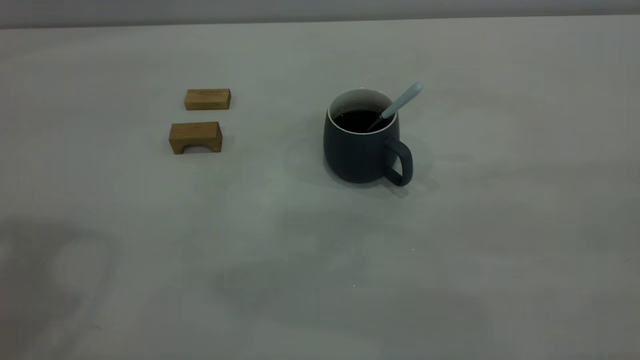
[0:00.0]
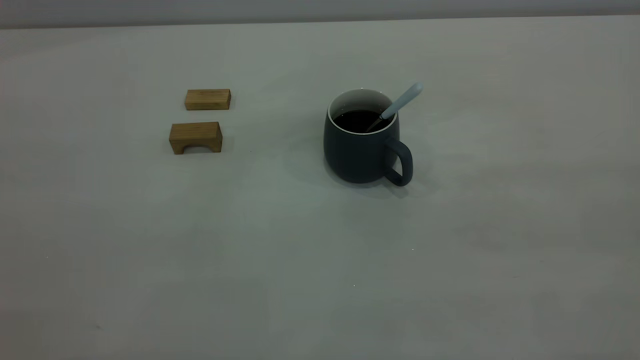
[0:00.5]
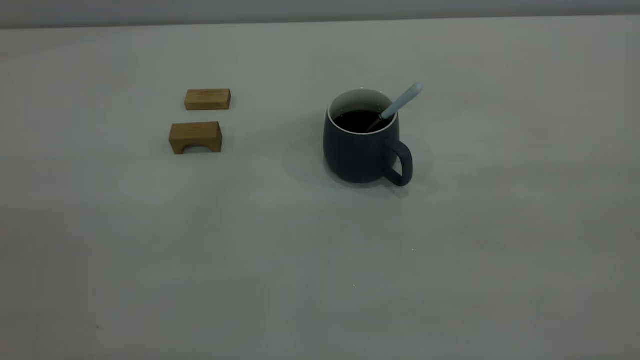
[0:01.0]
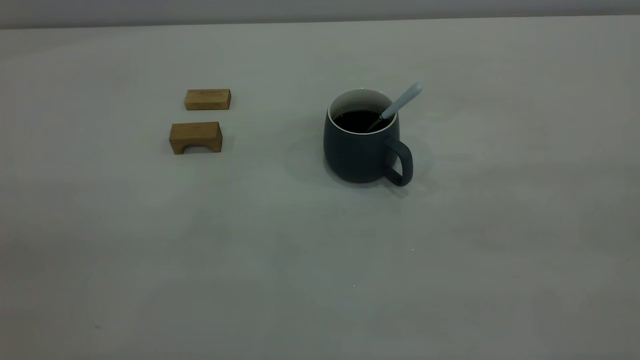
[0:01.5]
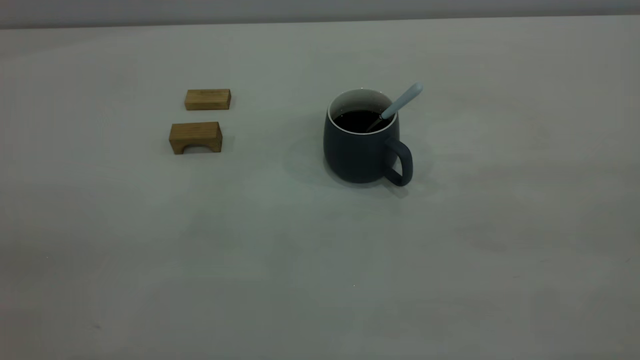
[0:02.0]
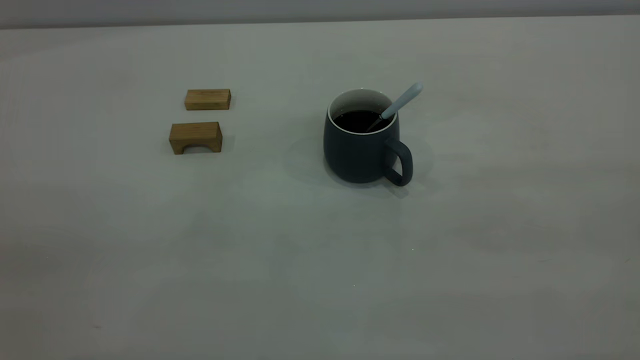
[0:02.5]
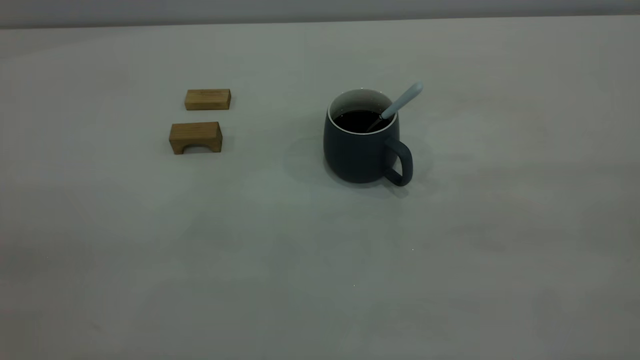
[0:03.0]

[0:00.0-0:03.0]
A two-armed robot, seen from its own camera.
0:01.5 to 0:03.0: Both grippers stay about where they are.

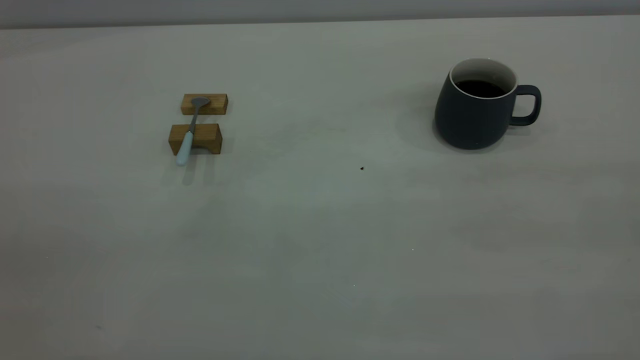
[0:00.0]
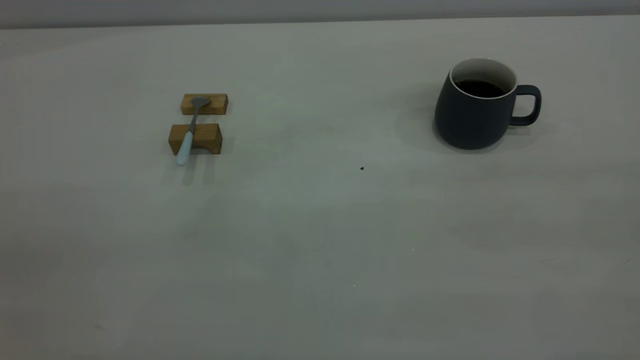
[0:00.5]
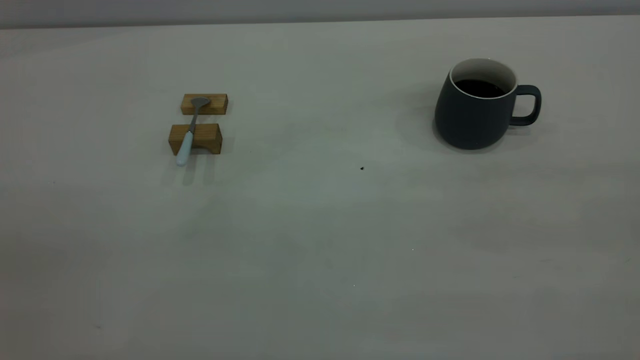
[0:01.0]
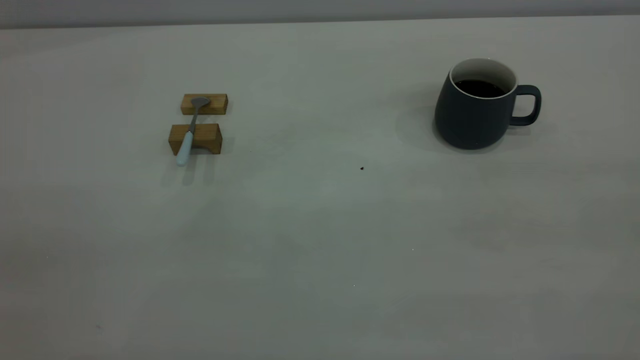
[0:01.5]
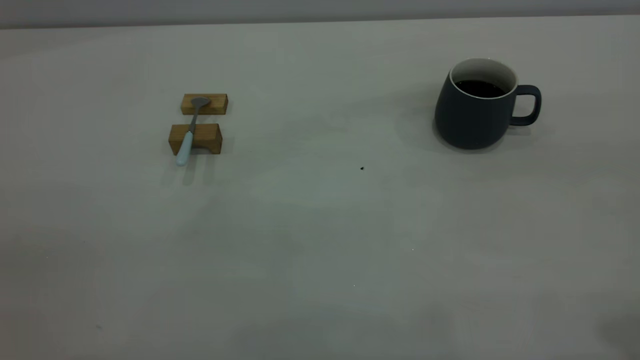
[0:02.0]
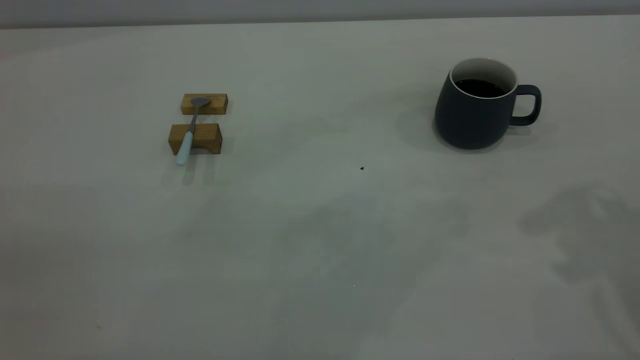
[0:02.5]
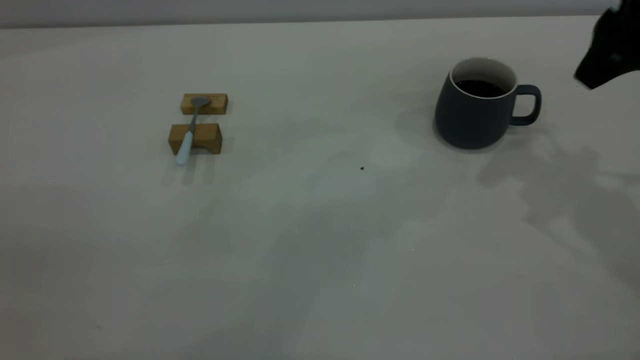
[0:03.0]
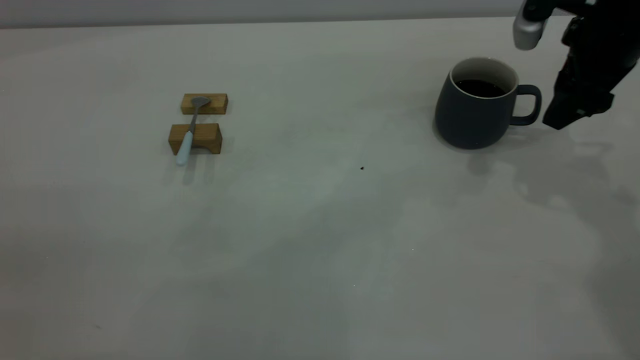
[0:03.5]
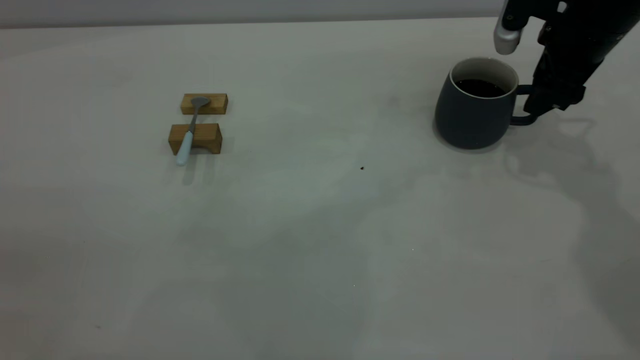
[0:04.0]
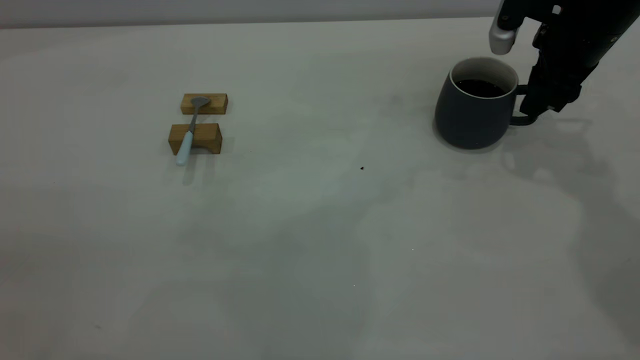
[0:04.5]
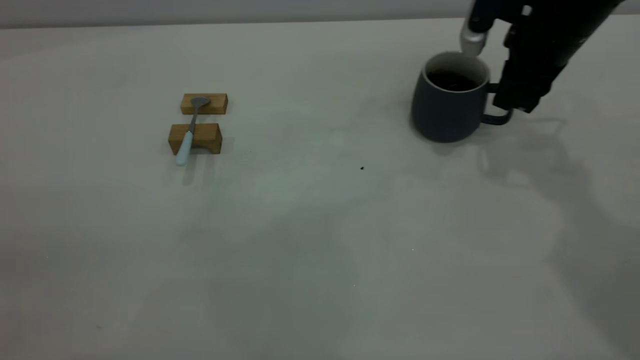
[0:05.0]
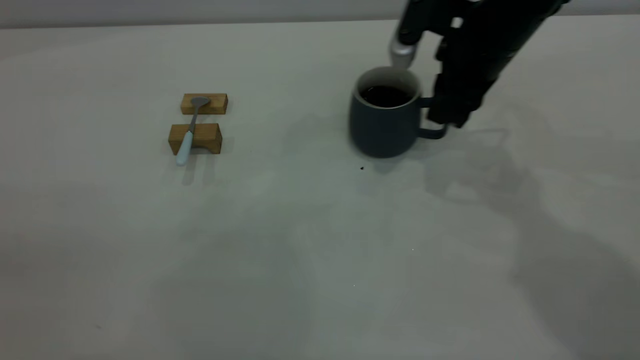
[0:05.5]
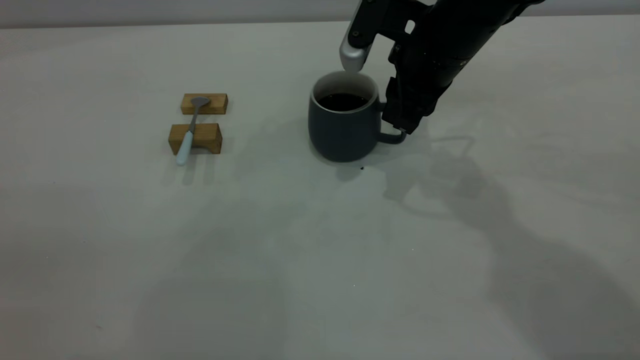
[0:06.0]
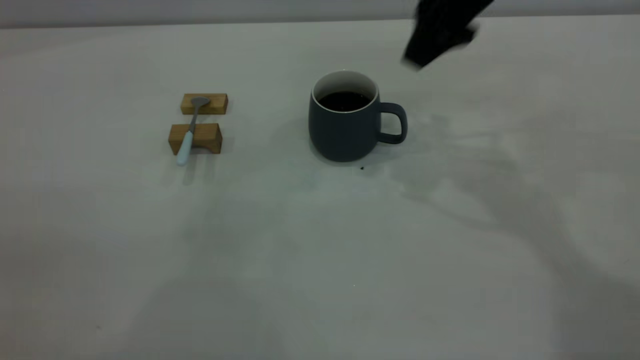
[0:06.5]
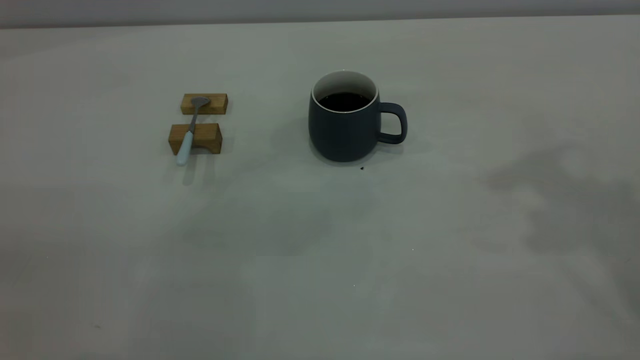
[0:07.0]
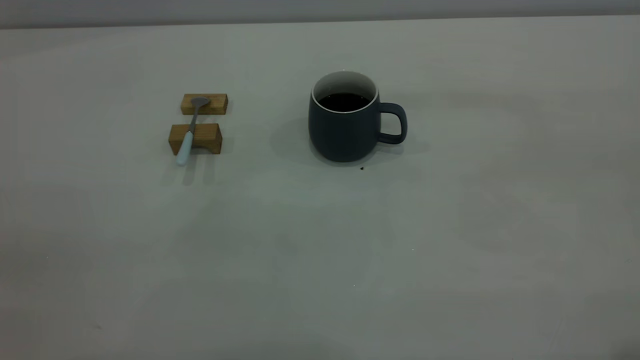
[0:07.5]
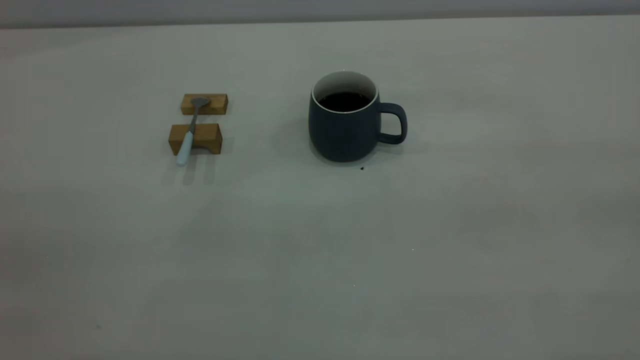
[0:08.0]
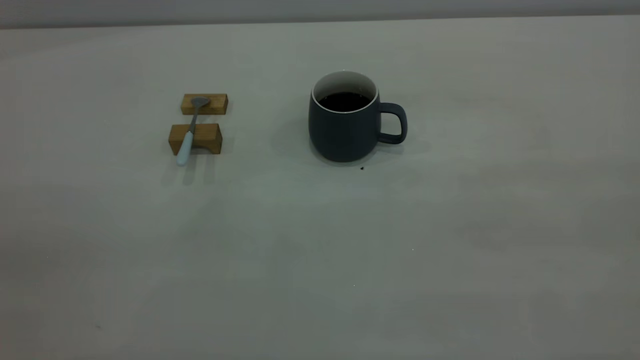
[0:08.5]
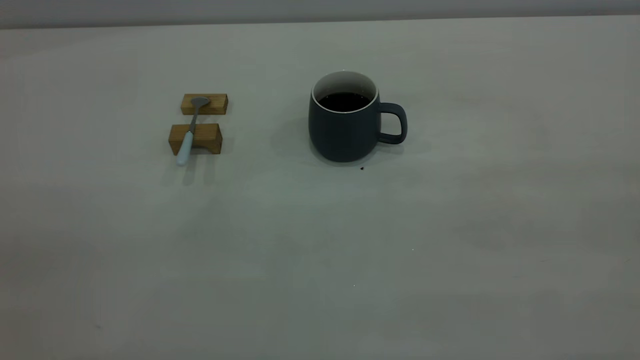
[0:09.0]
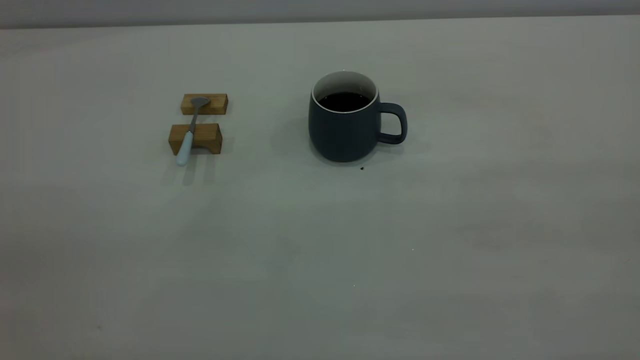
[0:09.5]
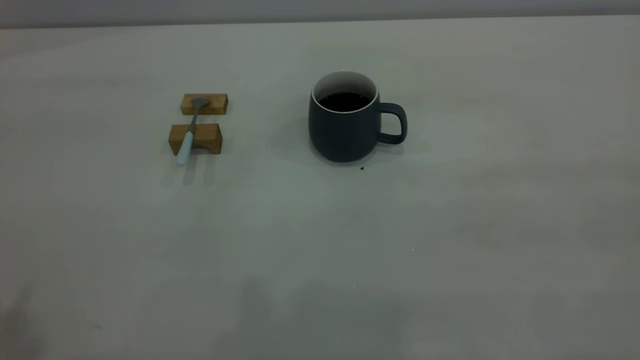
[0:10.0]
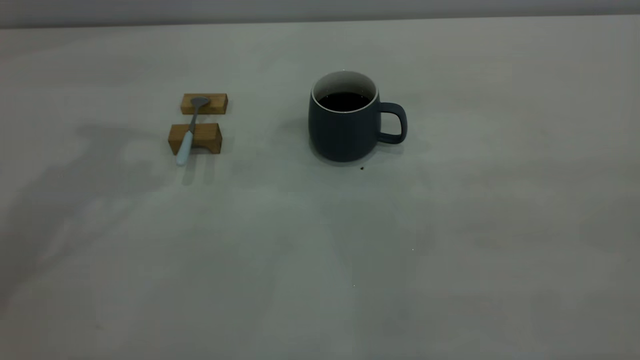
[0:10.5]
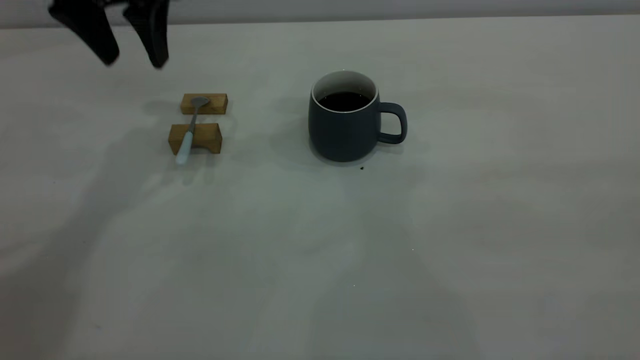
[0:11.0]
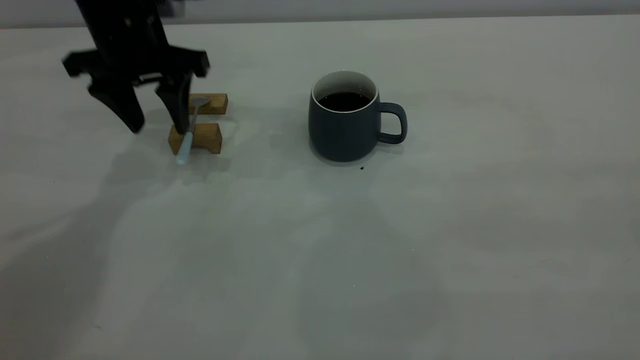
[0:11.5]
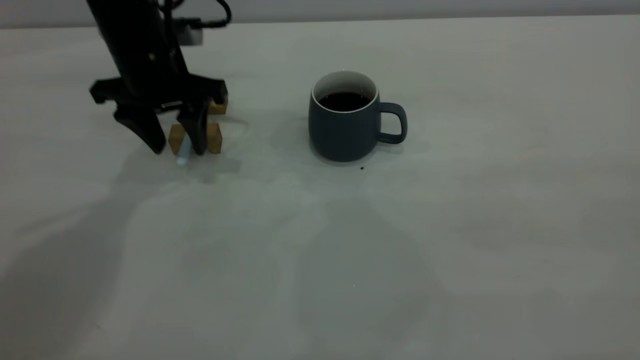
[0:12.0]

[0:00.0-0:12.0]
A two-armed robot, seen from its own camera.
Step, 0:00.0 to 0:06.0: Move the cup with coffee to the center of view.
0:02.0 to 0:04.0: The right gripper heads forward and downward, covering about 40 cm.
0:04.0 to 0:06.0: The right gripper shifts about 15 cm to the left, and closes up.
0:06.0 to 0:08.0: The right gripper goes about 50 cm backward, upward and to the right, and opens its fingers.
0:10.0 to 0:12.0: The left gripper is displaced downward and forward by roughly 40 cm.

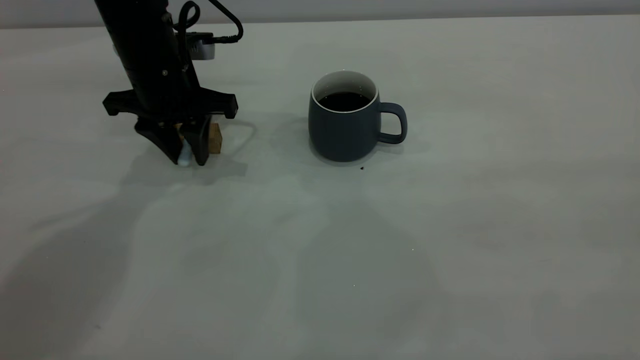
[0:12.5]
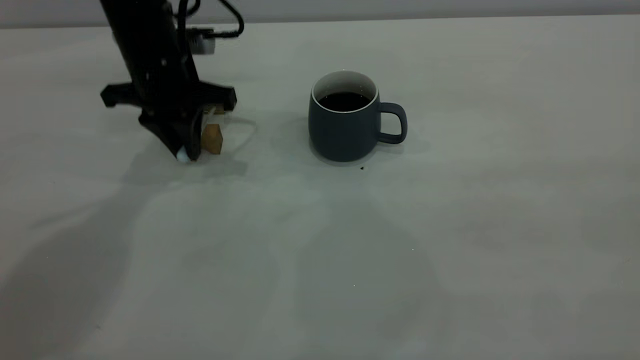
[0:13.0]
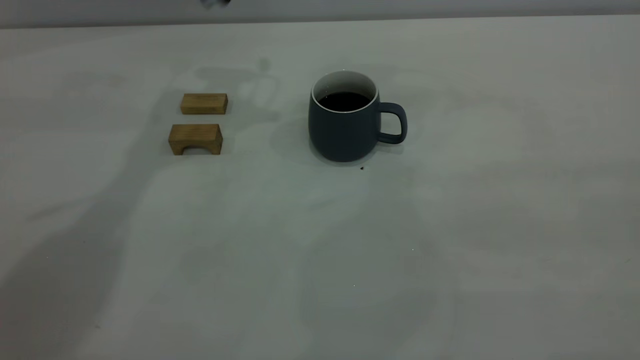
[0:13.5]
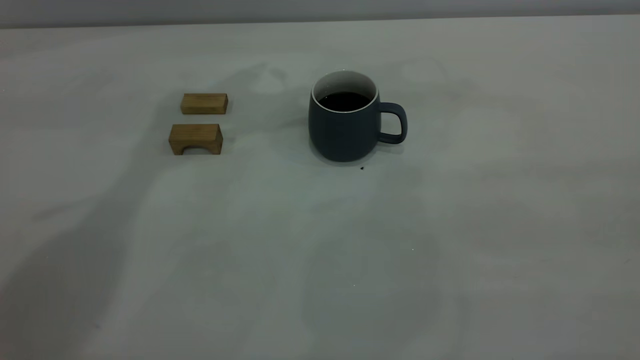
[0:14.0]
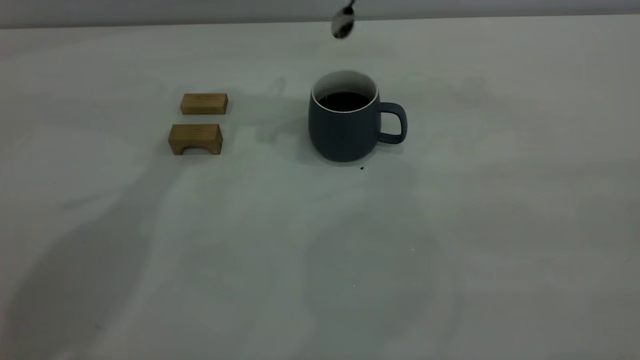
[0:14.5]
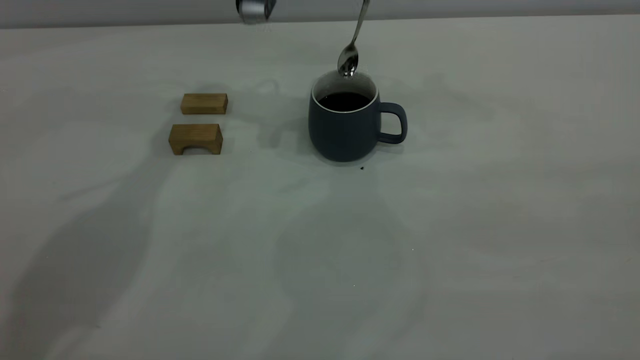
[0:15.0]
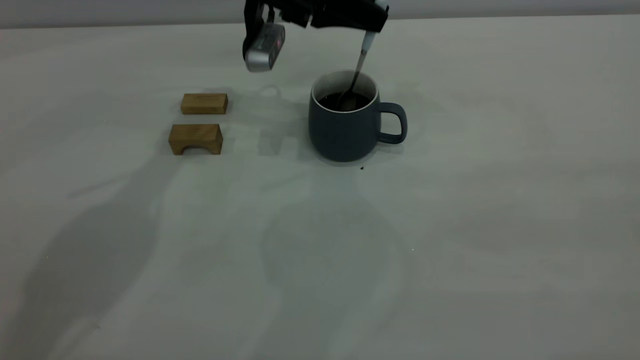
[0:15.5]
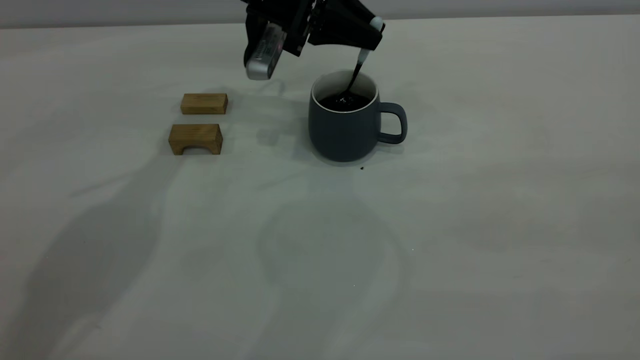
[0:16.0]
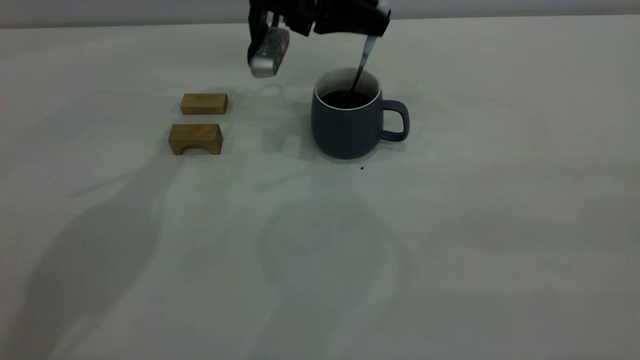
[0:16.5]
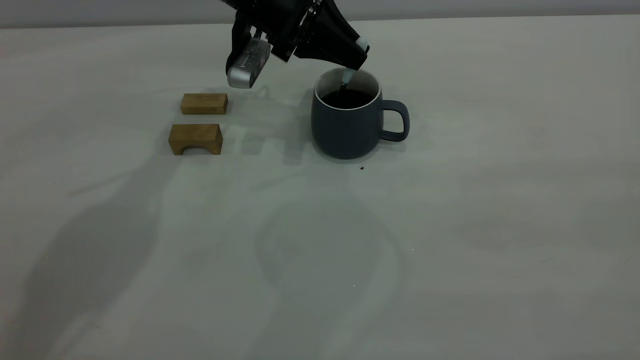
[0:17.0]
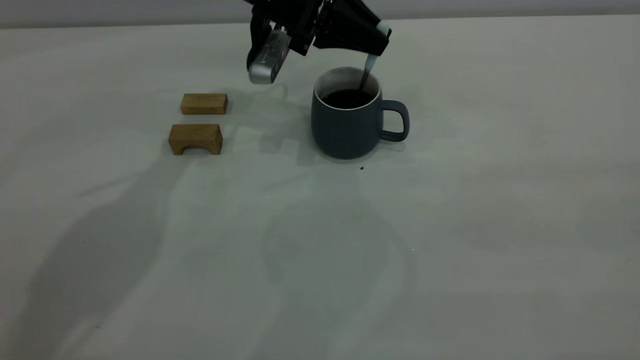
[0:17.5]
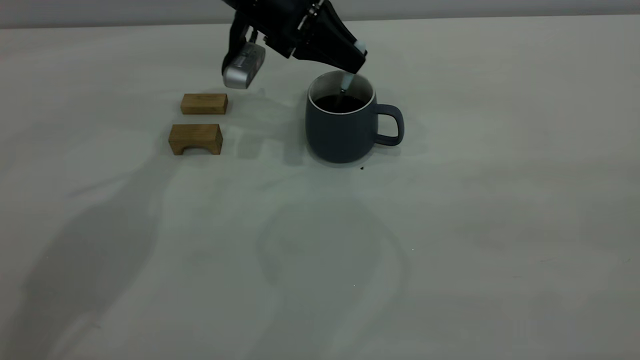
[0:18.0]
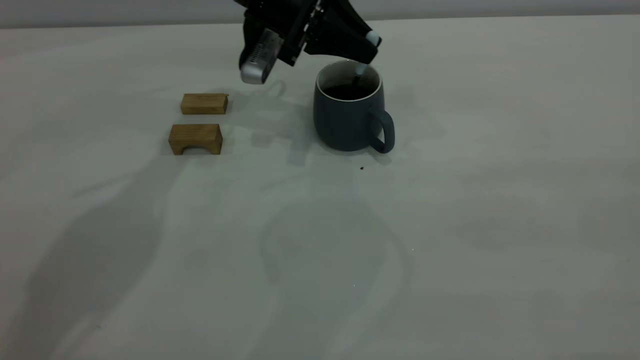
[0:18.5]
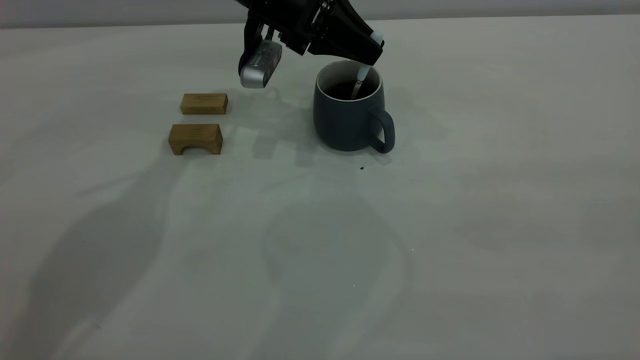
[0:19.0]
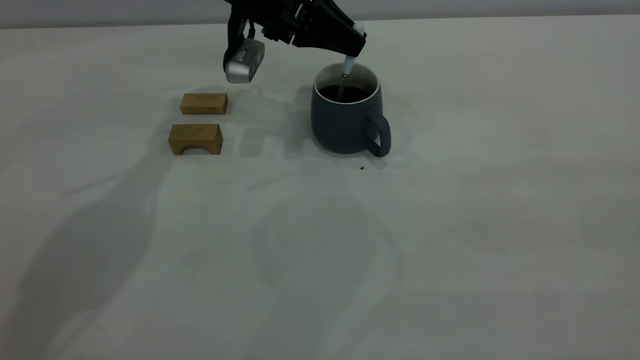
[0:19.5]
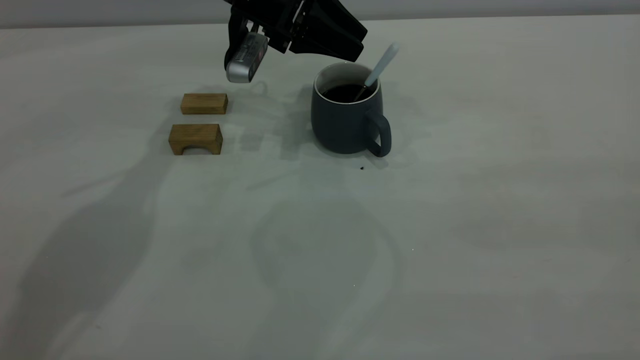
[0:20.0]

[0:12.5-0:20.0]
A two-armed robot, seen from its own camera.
0:12.5 to 0:14.5: The left gripper goes approximately 20 cm upward and to the right.
0:14.5 to 0:16.5: The left gripper goes some 10 cm downward.
0:16.5 to 0:18.0: The grippers make only small movements.
0:18.0 to 0:20.0: The left gripper opens.
